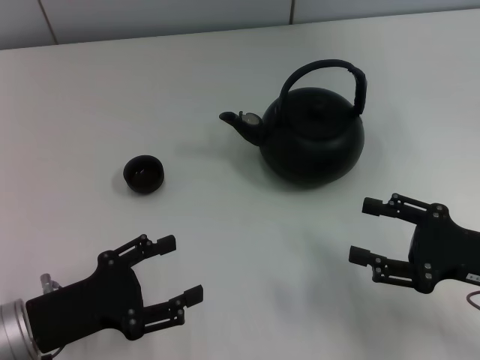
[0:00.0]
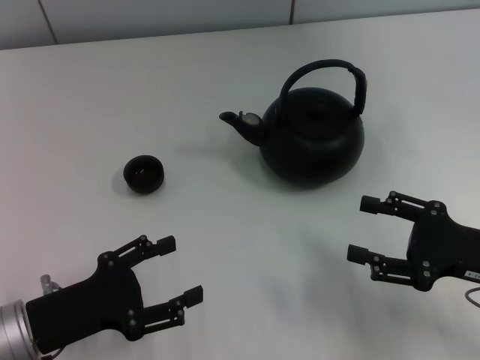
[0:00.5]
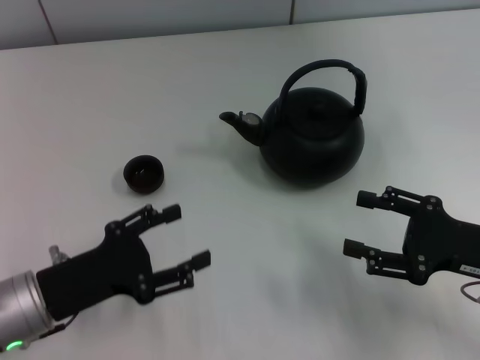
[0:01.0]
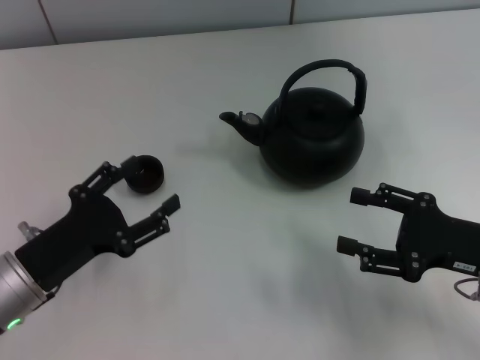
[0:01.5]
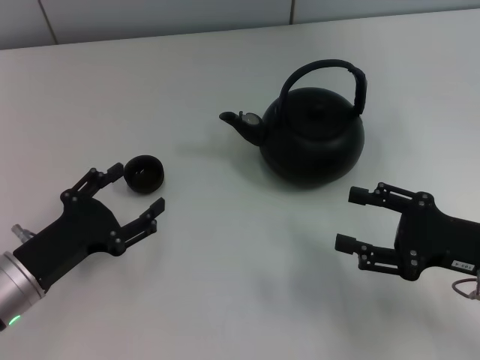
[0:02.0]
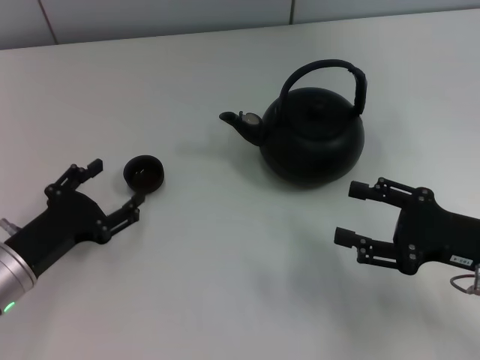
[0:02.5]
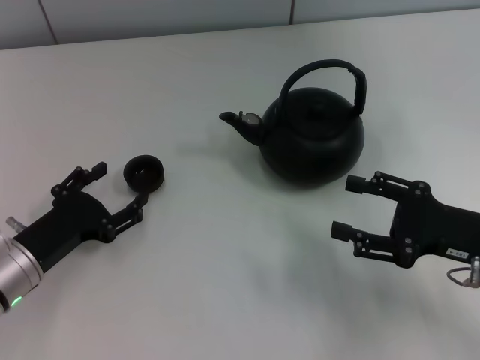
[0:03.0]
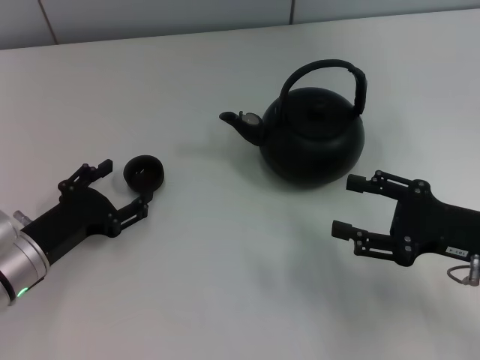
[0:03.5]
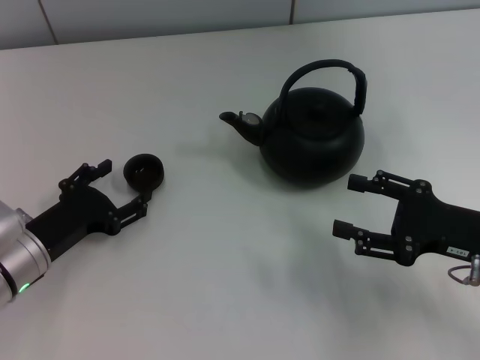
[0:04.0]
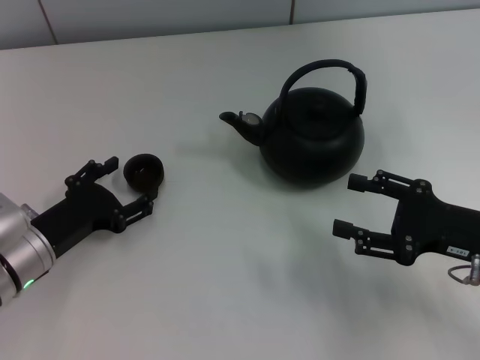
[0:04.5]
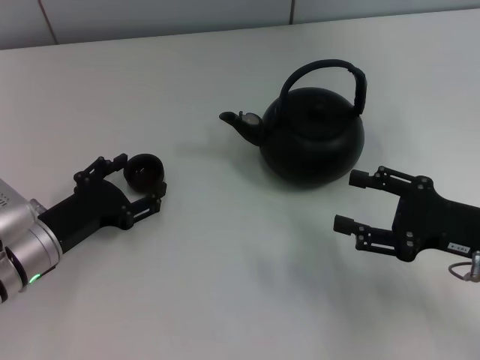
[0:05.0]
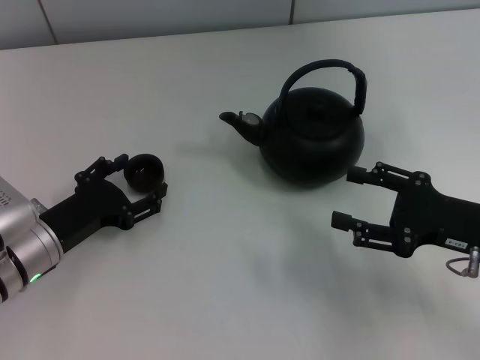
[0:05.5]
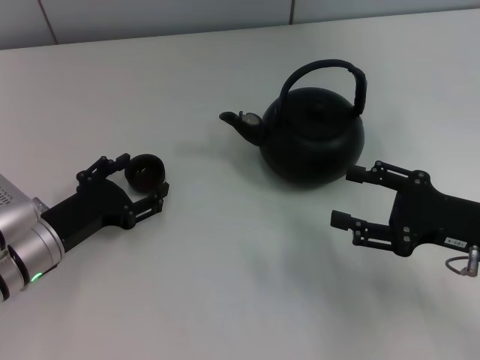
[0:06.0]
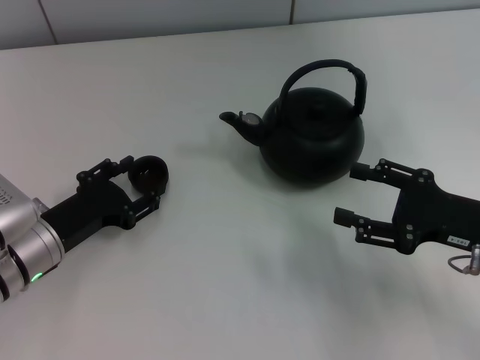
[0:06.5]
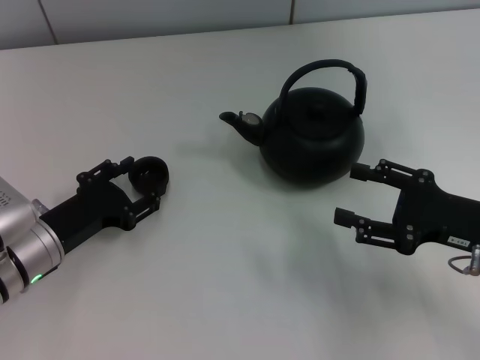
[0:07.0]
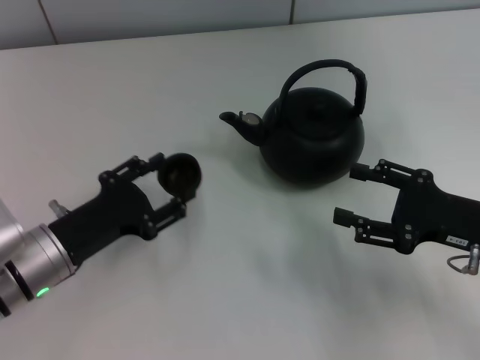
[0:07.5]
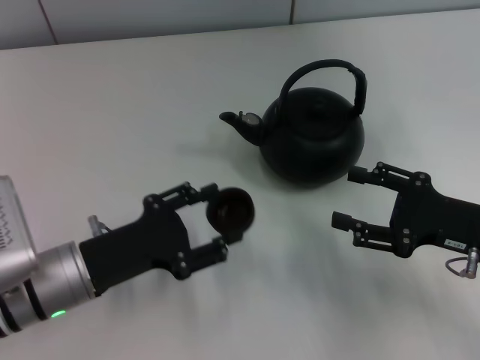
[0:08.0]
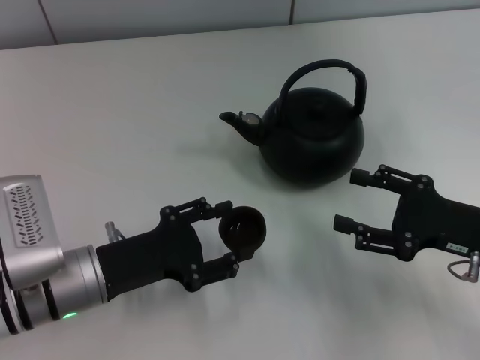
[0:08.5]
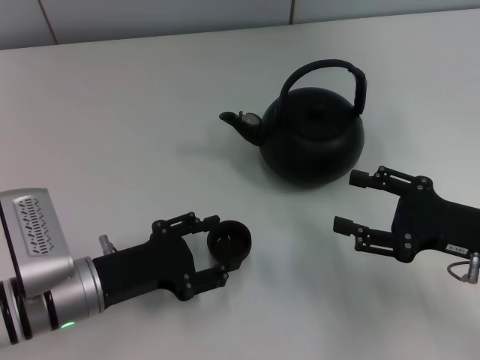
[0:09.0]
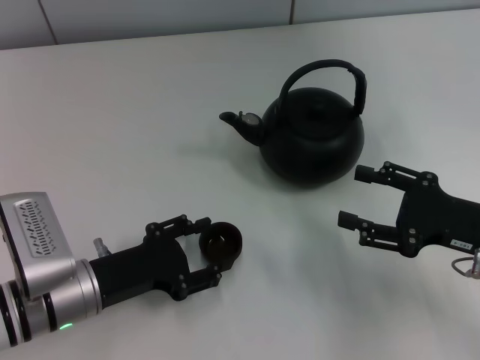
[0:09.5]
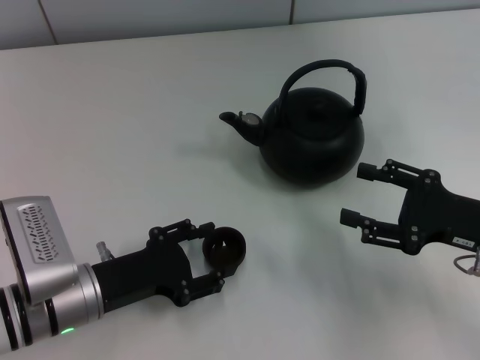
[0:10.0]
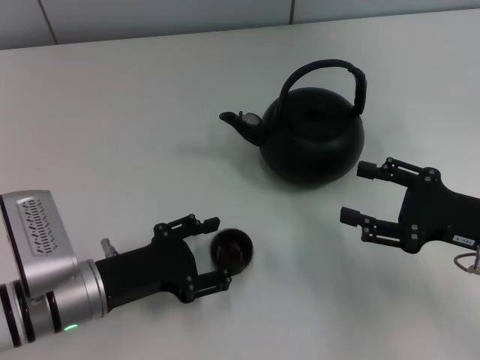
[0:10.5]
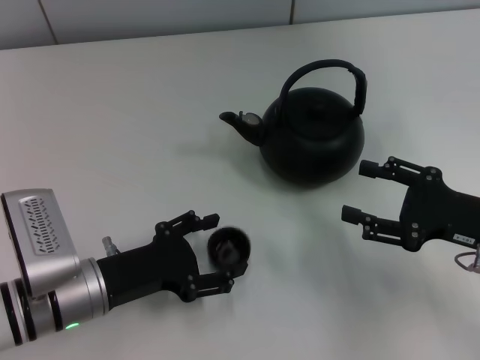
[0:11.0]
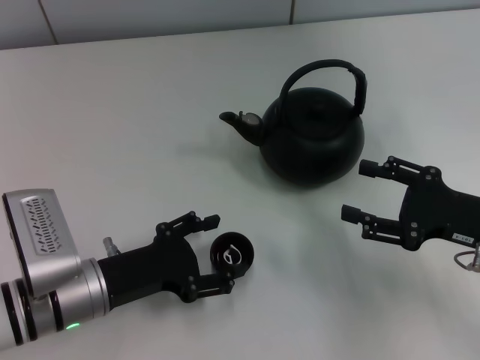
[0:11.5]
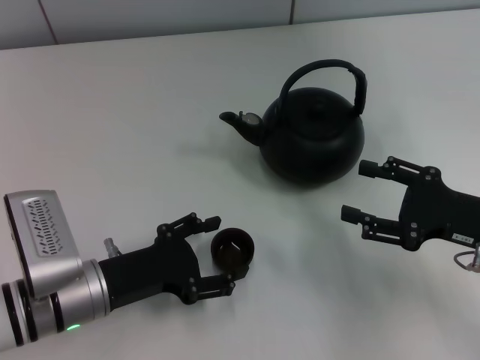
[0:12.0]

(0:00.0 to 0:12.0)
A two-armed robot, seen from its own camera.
Task of the whole recording: Grasp the handle of the teapot with one hand and pour tea into the teacup.
Step, 0:00.0 - 0:07.5: Pick up the teacup with the left gripper.
Step, 0:08.0 - 0:11.0: Place the teacup in the center of view with the left gripper.
0:02.0 - 0:06.0: There are only small adjustments of the grippers.
0:06.0 - 0:08.0: The left gripper moves roughly 5 cm, and closes up.
0:08.0 - 0:10.0: The grippers make only small movements.
0:10.0 - 0:12.0: The left gripper opens up.

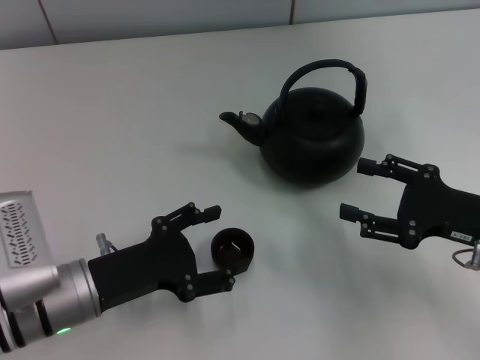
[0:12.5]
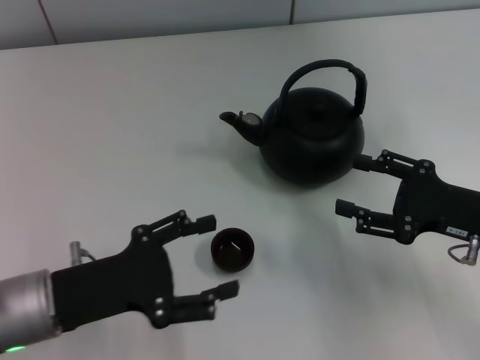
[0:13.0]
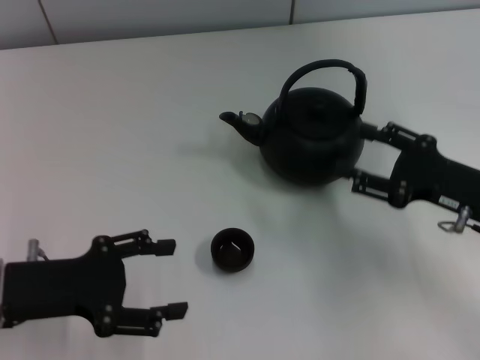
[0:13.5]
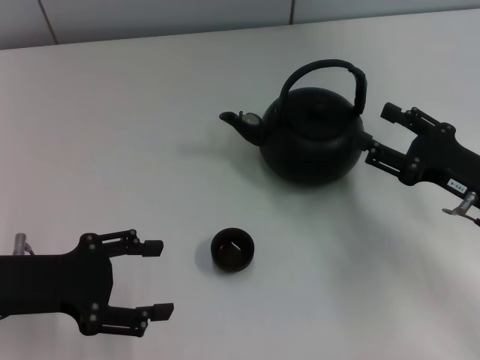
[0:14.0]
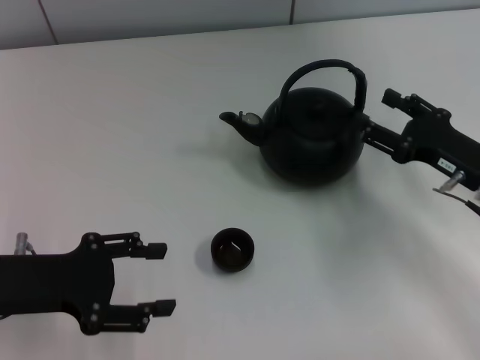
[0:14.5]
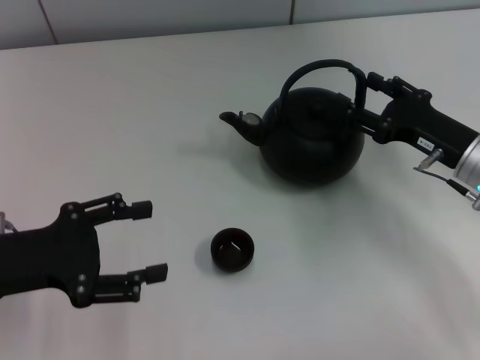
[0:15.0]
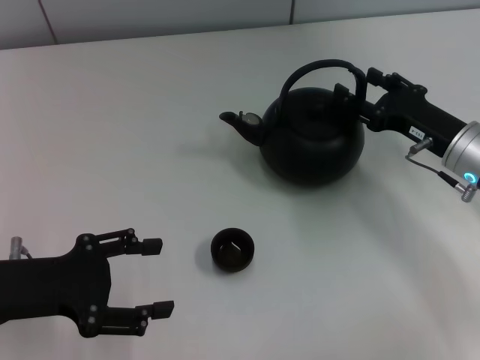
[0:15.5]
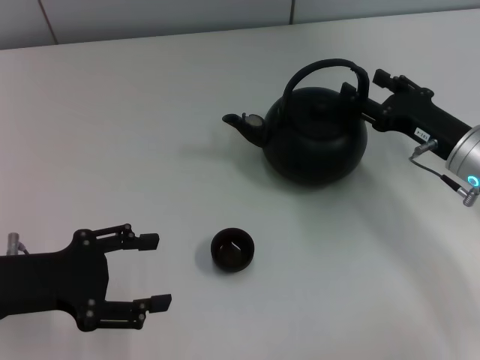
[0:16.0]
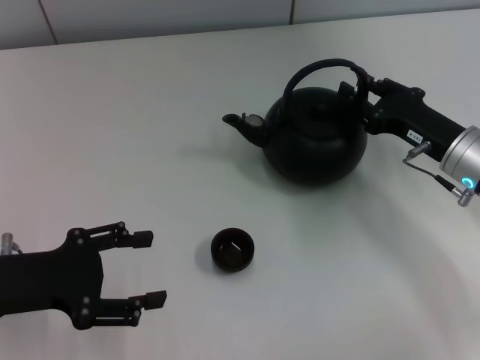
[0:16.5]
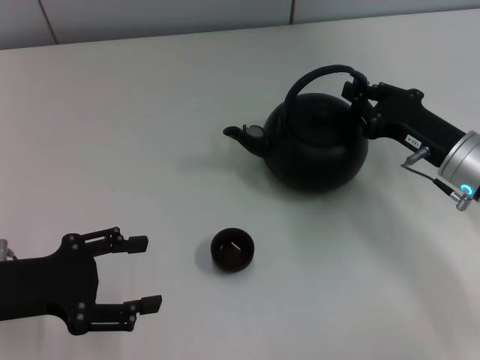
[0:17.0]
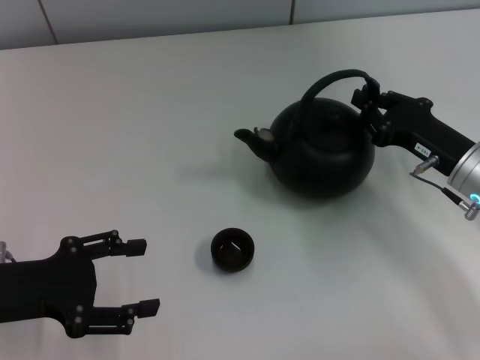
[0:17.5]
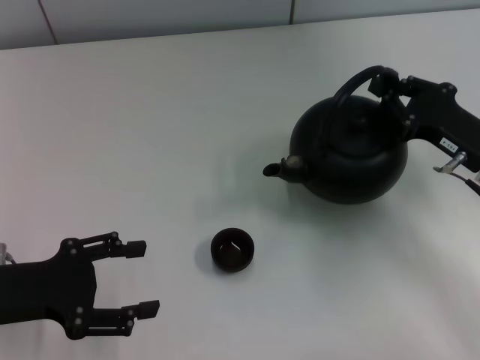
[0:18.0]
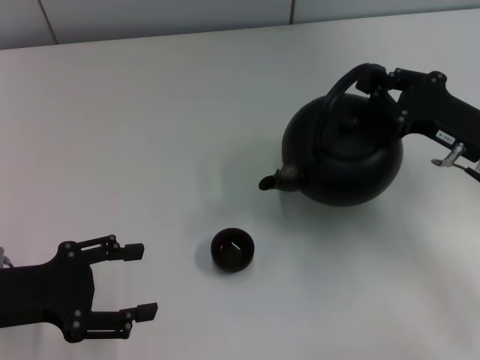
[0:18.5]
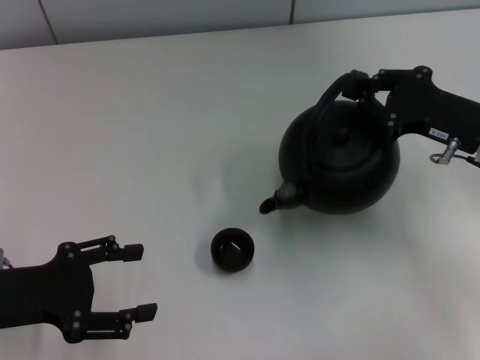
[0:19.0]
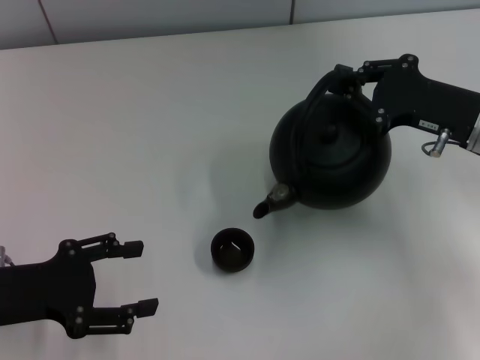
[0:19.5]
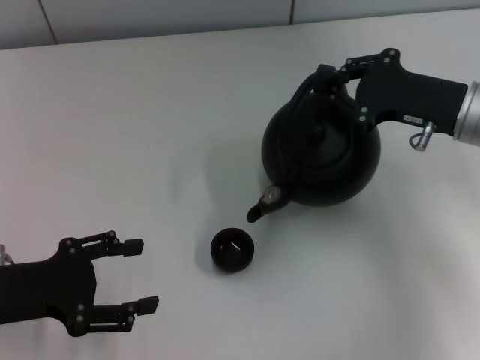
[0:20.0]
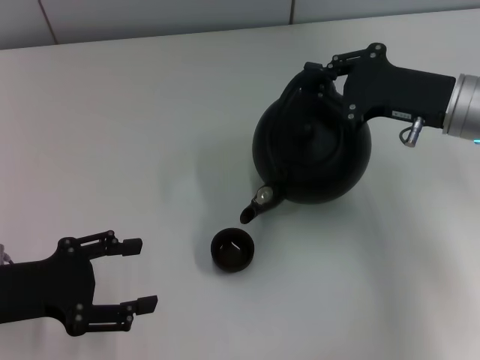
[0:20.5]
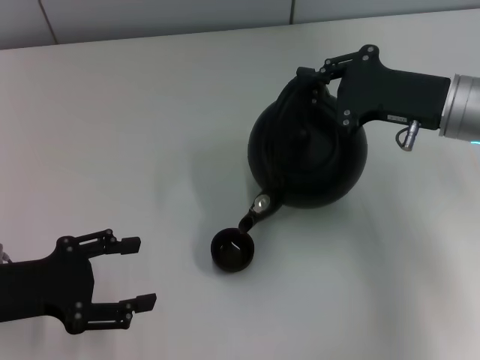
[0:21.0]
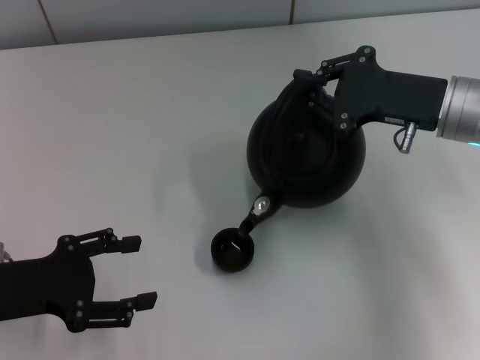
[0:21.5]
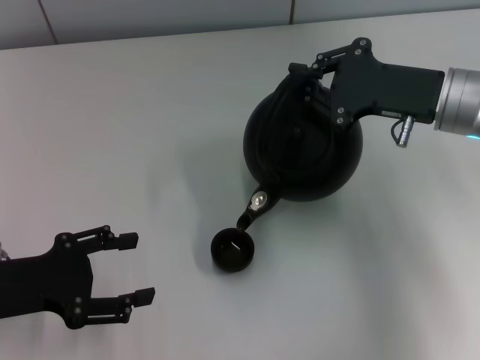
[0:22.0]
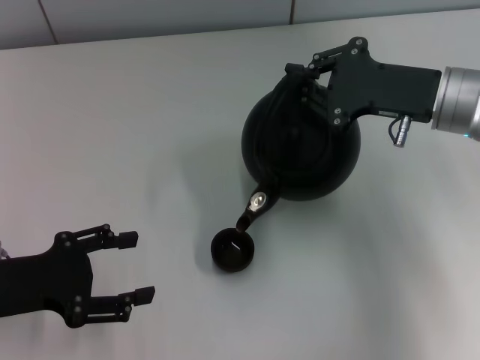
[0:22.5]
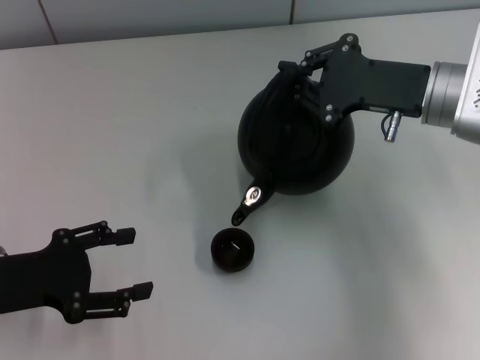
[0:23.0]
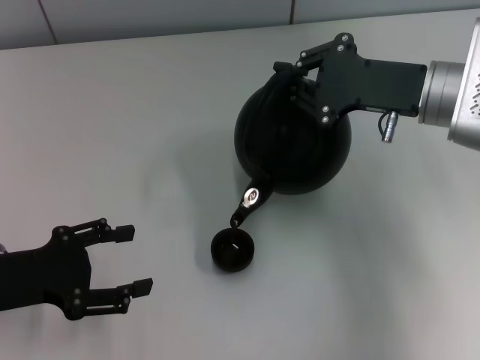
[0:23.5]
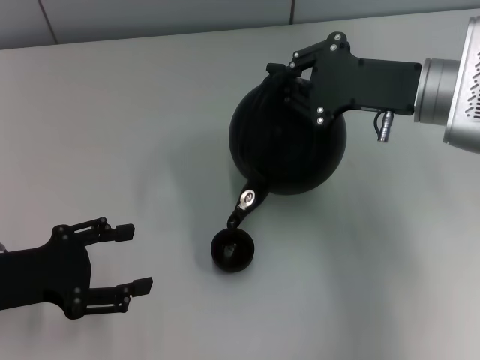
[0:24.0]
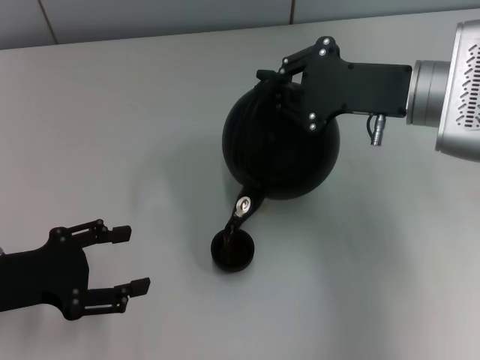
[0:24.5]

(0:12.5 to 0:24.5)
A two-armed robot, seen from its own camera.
Task of the whole recording: Grasp the handle of the teapot with one hand and pour tea into the teacup.
Step, 0:12.5 - 0:18.0: Pick up the teapot with the right gripper.
0:12.5 - 0:14.5: The left gripper travels to the left and upward by about 10 cm, and closes.
0:14.5 - 0:16.5: The grippers make only small movements.
0:16.5 - 0:18.5: The right gripper closes.
0:18.5 - 0:20.5: The right gripper changes place by about 5 cm.
0:20.5 - 0:22.5: There are only small adjustments of the grippers.
0:22.5 - 0:24.5: The grippers stay close to where they were, moving slightly.

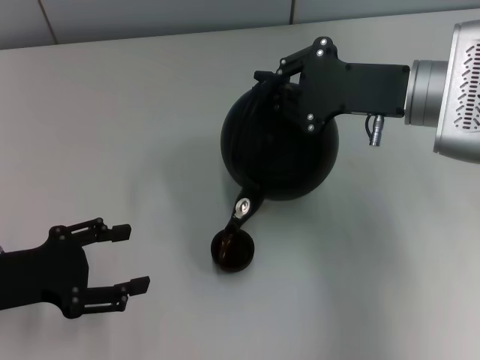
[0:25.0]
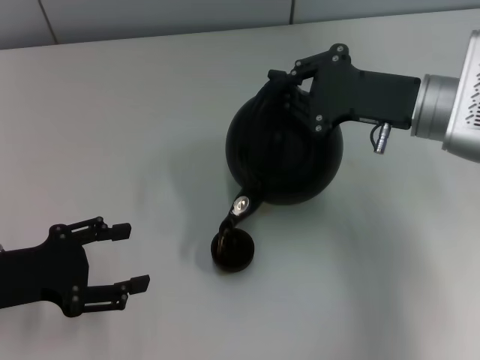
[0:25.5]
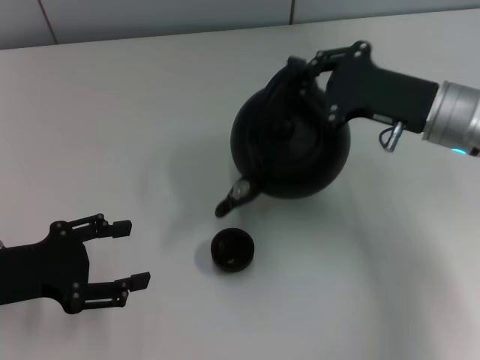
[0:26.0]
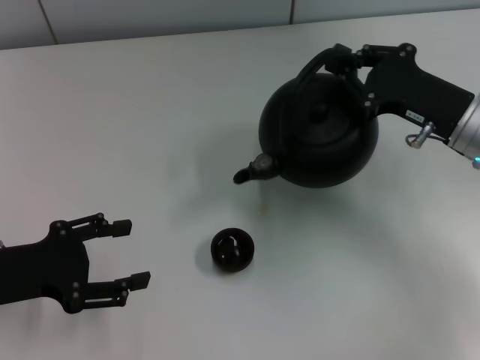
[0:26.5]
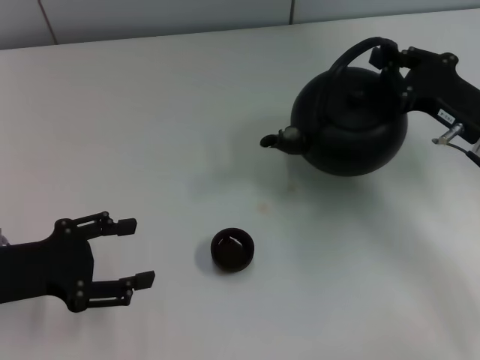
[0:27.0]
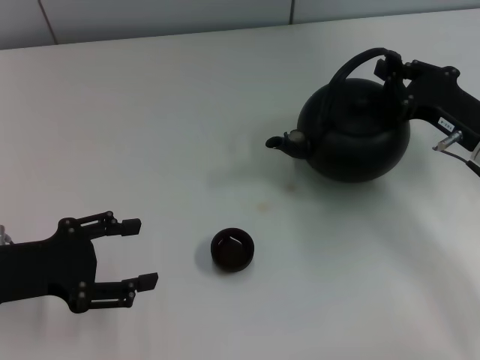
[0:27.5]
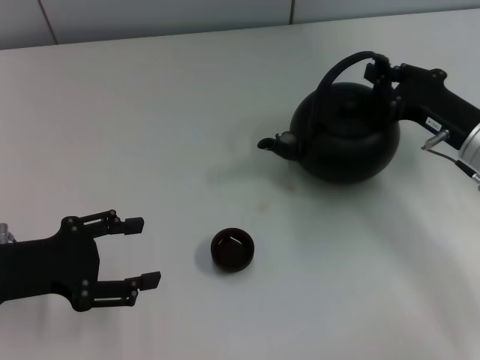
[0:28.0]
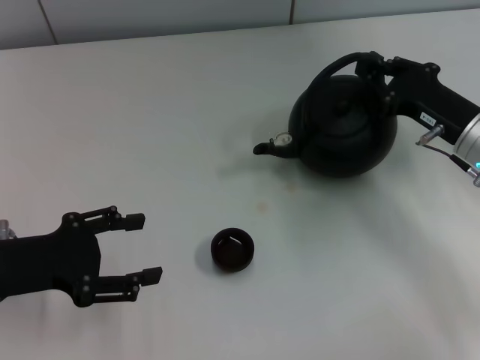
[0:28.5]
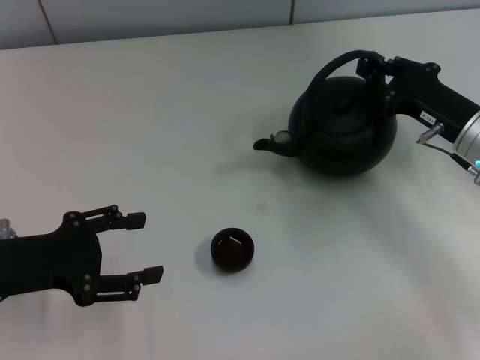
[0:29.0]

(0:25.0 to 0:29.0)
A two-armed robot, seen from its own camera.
Task of the whole recording: Grasp the handle of the teapot with one hand and pour tea into the teacup.
0:25.0 - 0:27.0: The right gripper shifts roughly 10 cm to the right and downward.
0:27.0 - 0:29.0: The grippers move only a little.
